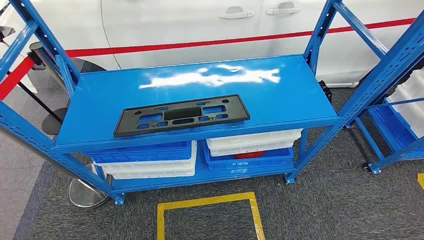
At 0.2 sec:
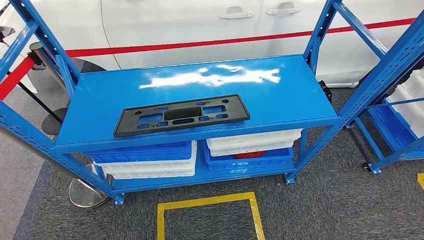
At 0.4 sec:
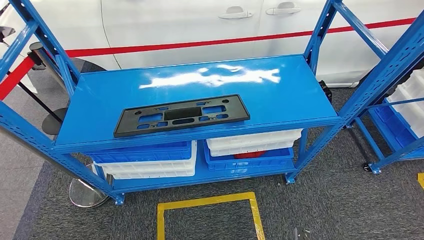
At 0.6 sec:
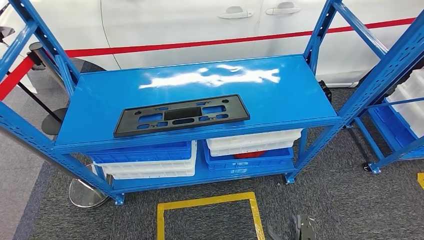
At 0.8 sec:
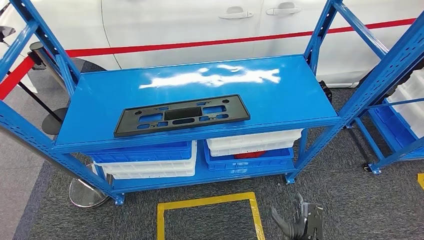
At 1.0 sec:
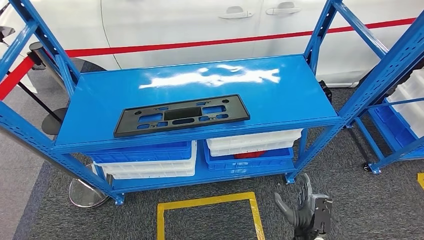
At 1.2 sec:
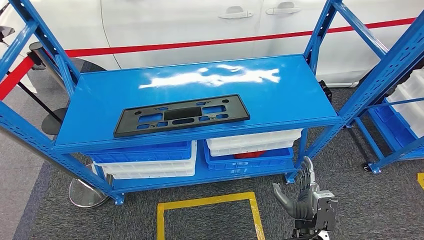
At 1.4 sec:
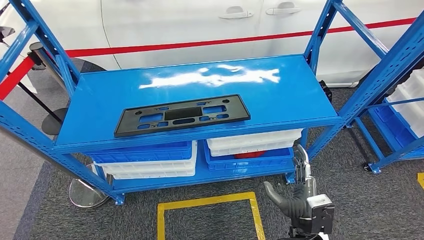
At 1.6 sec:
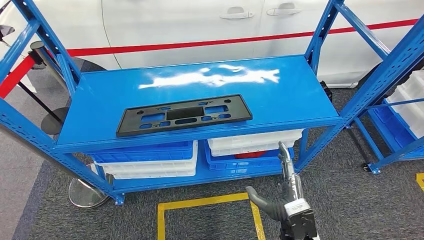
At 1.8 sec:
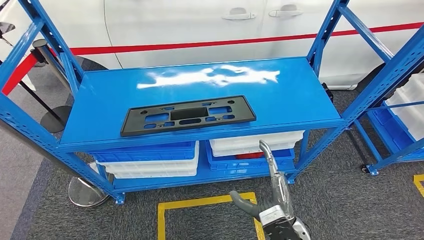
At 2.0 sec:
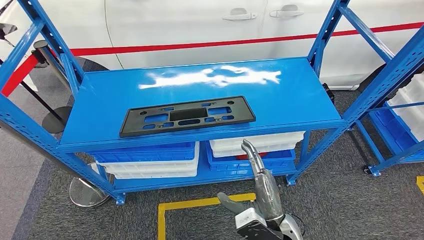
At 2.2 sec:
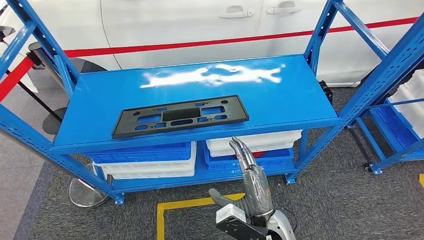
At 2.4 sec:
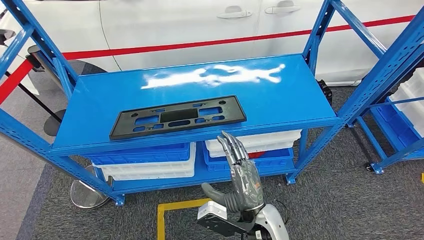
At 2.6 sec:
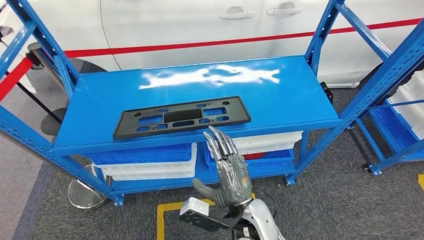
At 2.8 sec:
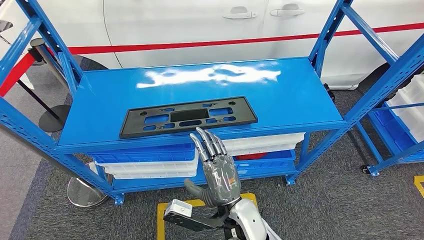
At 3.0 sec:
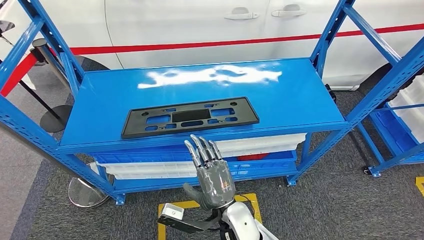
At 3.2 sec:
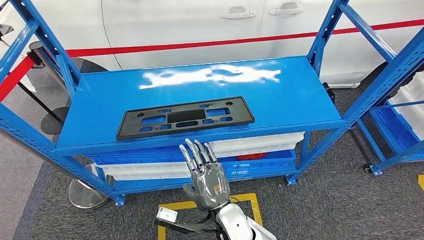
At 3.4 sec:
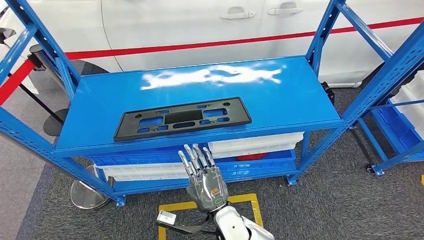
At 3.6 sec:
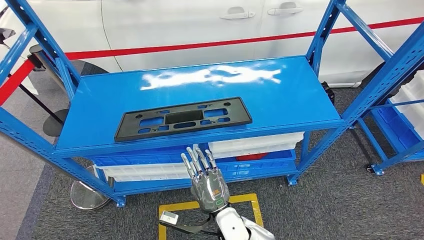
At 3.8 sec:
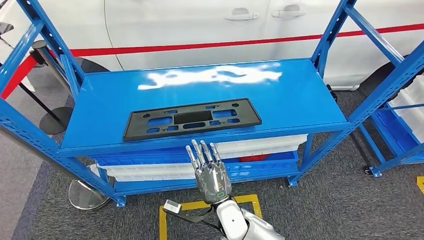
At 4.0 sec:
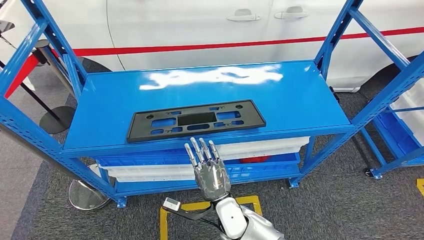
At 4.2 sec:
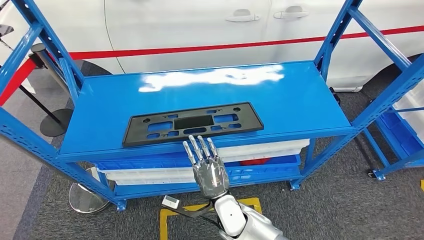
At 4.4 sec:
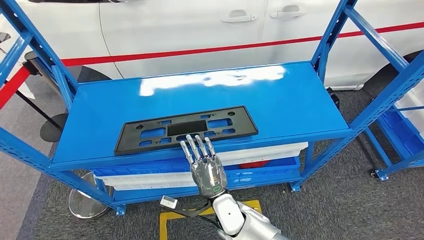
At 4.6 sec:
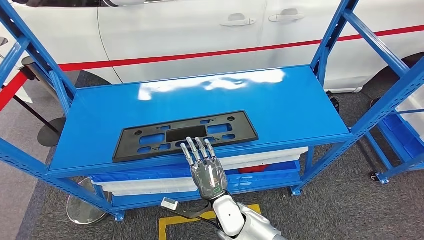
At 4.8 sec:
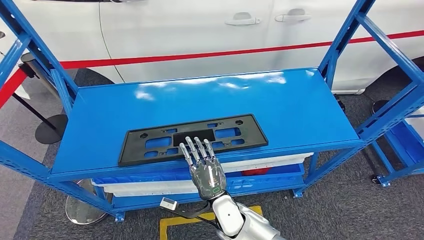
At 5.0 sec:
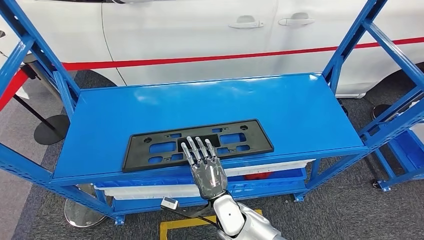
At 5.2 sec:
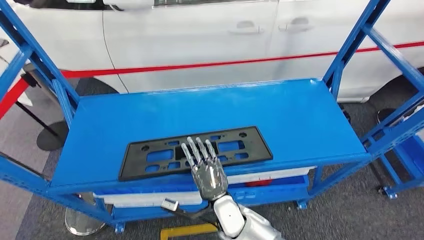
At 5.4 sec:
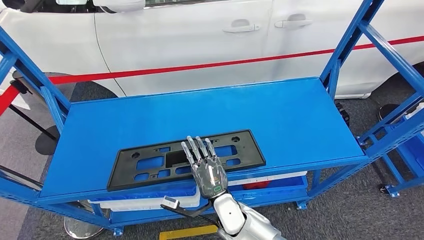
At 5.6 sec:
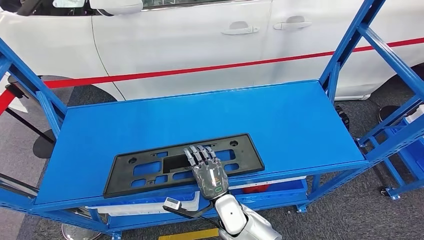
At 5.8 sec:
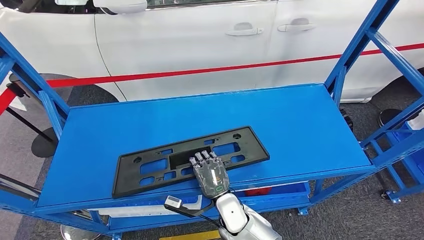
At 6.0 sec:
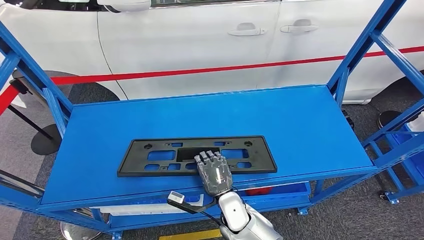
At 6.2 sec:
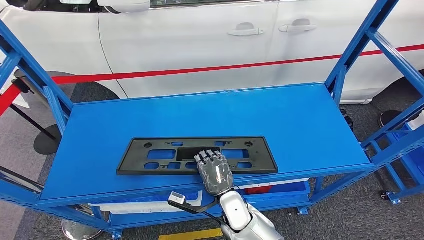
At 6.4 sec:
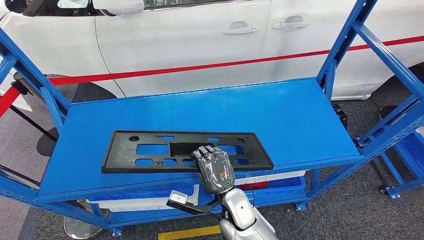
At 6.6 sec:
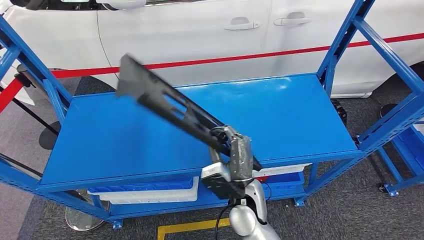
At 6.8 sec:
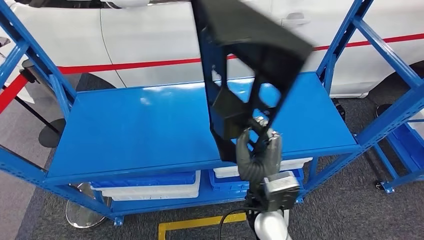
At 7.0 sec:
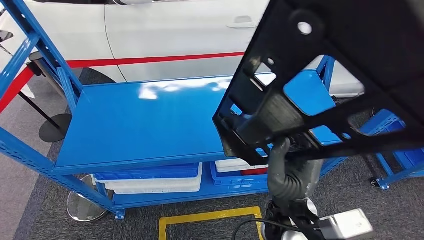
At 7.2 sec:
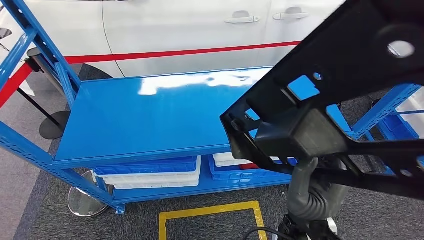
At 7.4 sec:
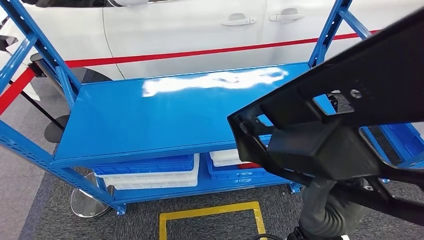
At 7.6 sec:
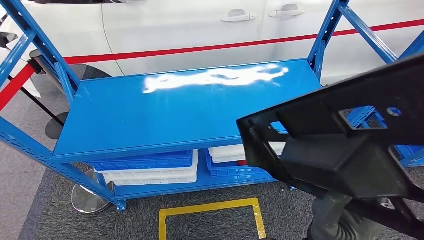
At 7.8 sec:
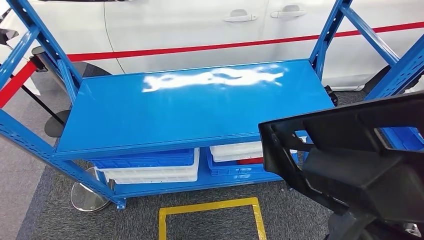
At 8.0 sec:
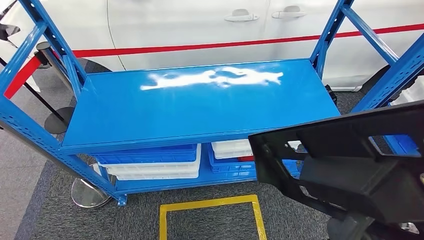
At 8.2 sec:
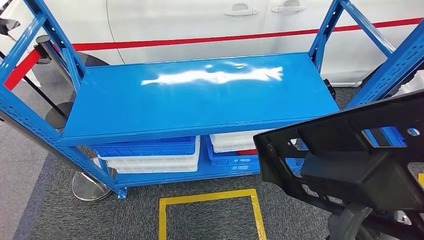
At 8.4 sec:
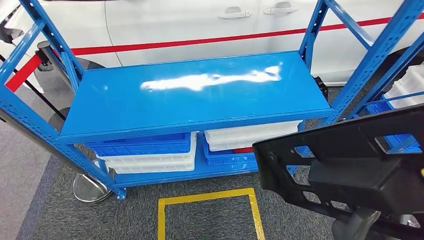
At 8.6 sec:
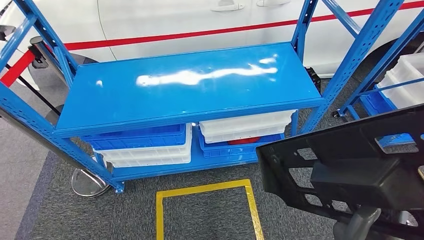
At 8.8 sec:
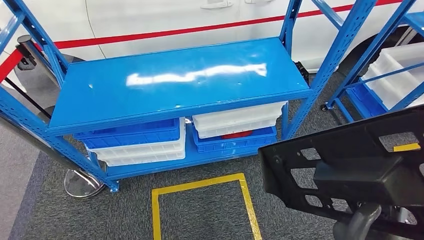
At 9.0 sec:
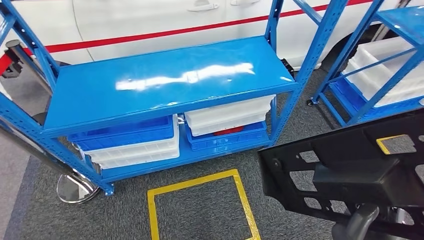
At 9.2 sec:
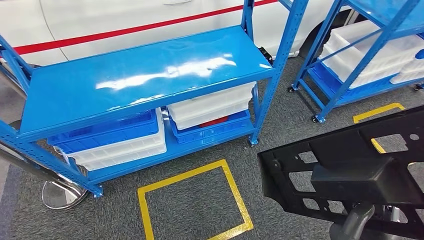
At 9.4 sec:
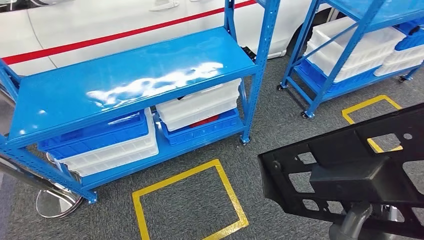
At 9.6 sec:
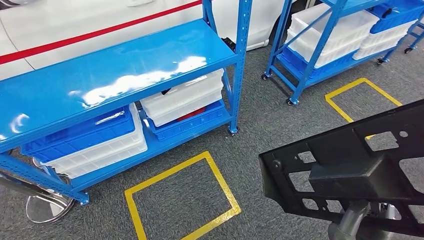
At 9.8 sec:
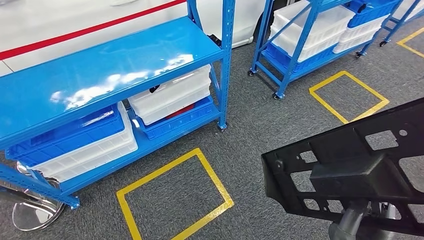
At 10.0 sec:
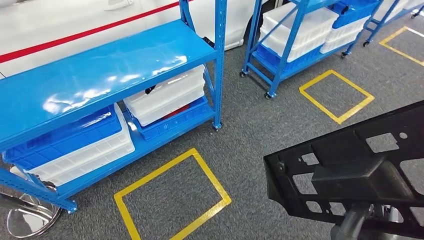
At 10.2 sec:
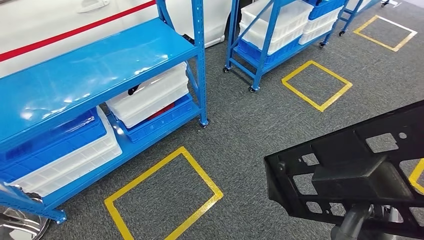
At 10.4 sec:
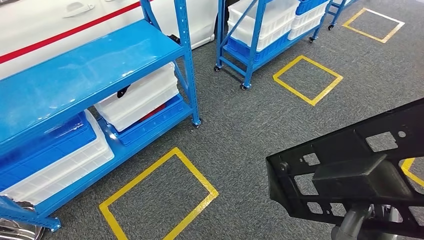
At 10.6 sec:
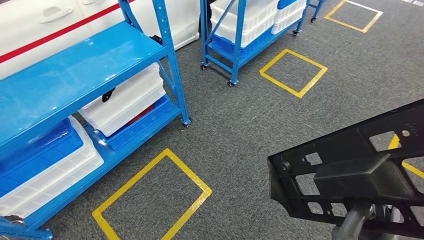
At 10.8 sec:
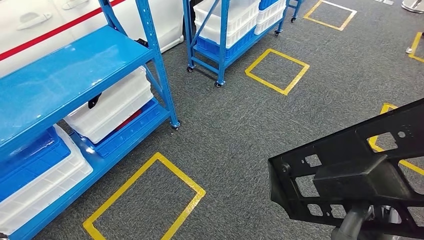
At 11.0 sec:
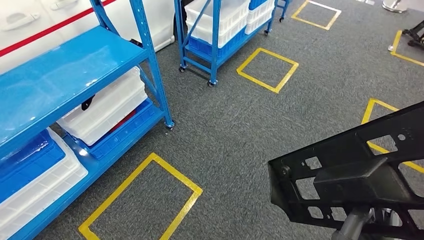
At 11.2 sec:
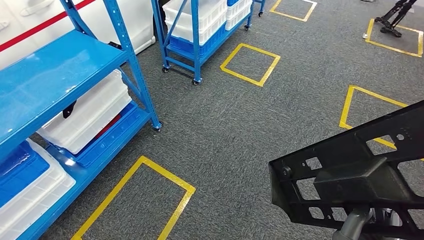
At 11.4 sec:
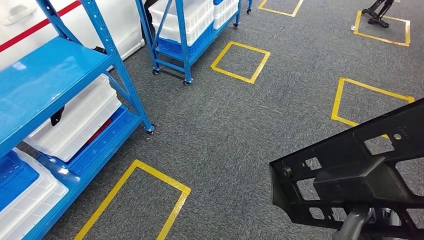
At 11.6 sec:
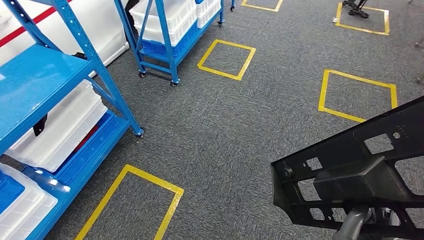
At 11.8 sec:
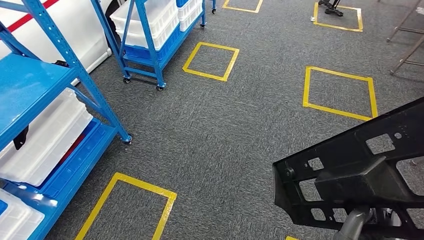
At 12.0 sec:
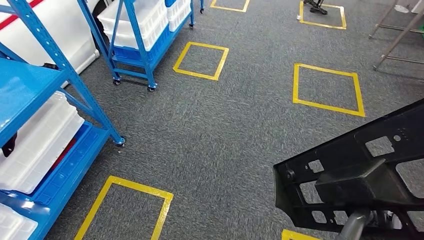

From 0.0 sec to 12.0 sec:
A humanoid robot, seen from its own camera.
Step, from 0.0 sec to 8.0 sec: Pick up the large material from the shelf.

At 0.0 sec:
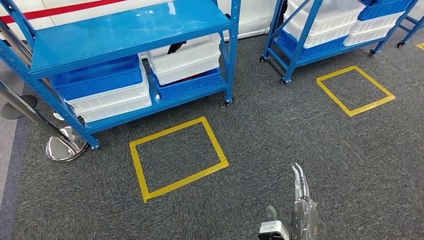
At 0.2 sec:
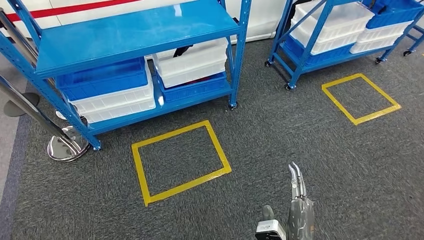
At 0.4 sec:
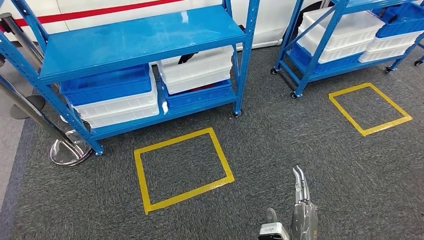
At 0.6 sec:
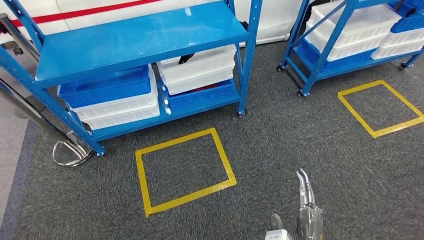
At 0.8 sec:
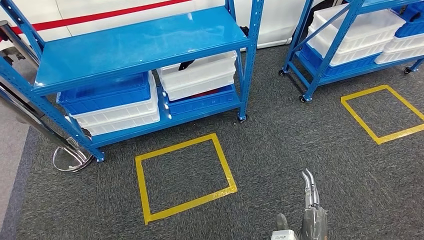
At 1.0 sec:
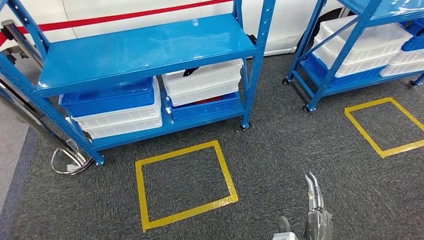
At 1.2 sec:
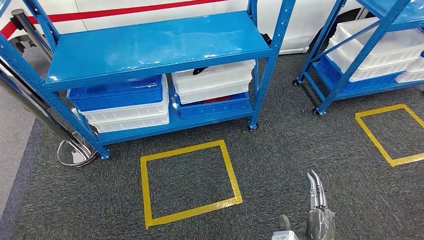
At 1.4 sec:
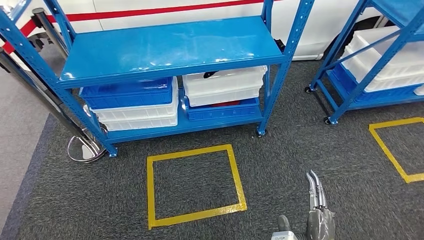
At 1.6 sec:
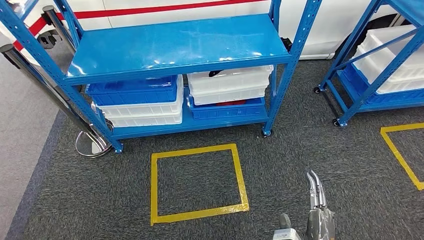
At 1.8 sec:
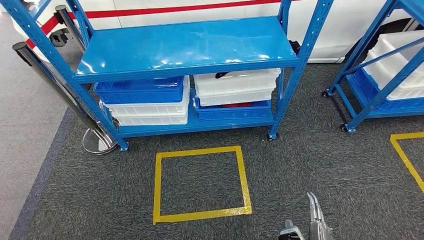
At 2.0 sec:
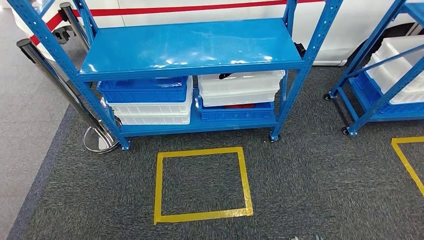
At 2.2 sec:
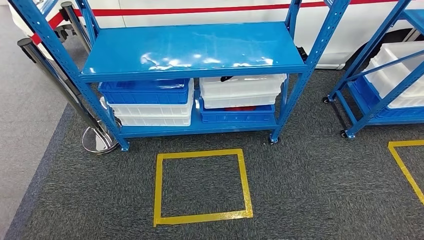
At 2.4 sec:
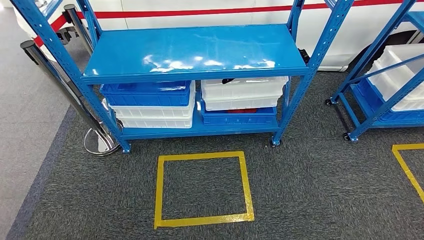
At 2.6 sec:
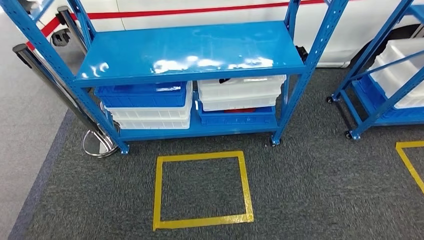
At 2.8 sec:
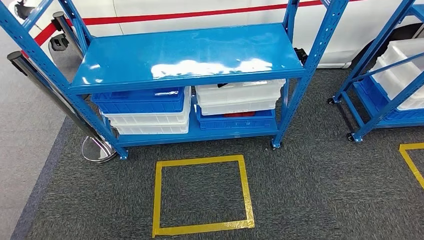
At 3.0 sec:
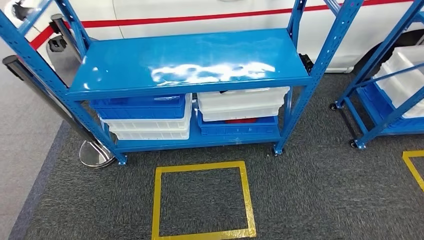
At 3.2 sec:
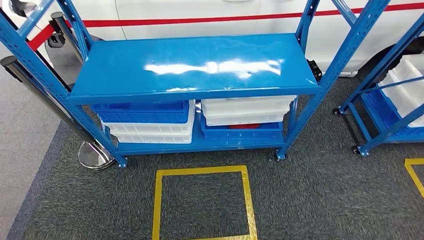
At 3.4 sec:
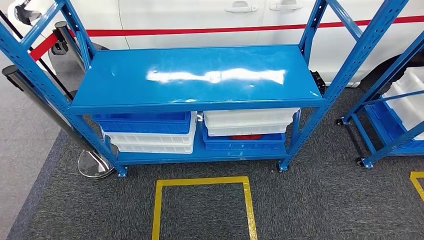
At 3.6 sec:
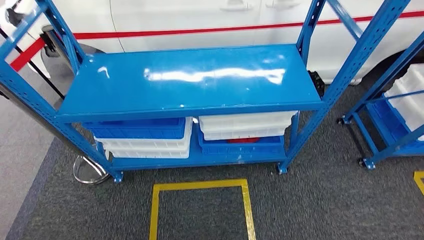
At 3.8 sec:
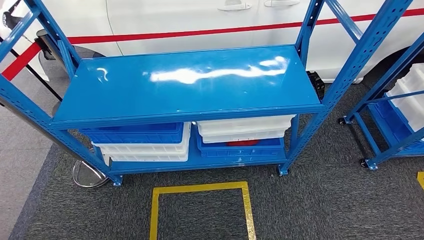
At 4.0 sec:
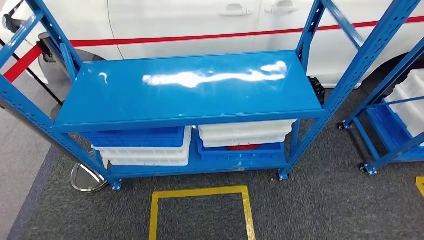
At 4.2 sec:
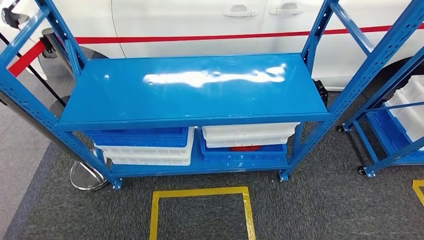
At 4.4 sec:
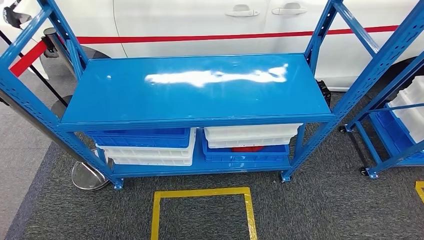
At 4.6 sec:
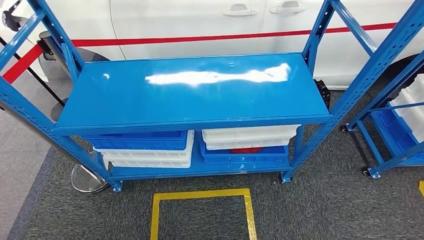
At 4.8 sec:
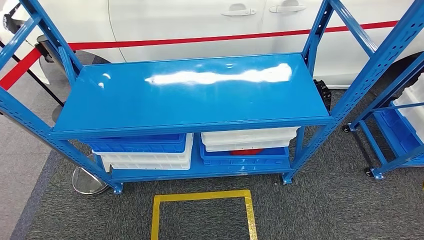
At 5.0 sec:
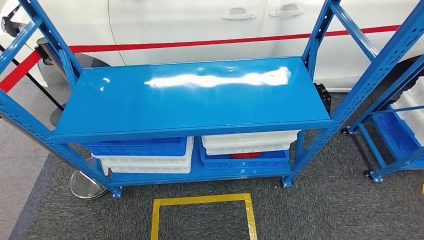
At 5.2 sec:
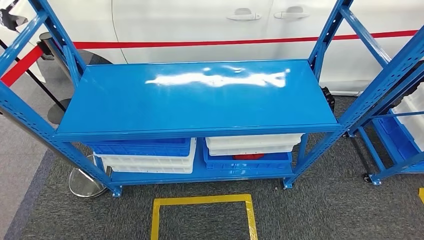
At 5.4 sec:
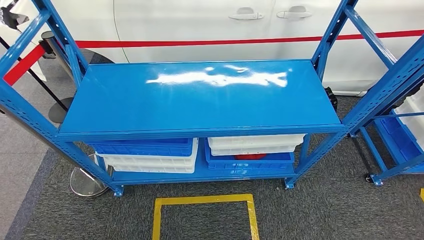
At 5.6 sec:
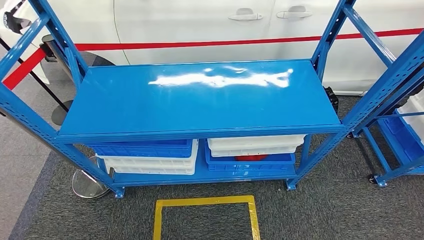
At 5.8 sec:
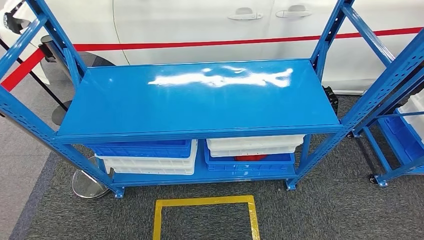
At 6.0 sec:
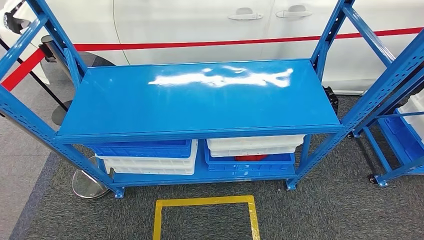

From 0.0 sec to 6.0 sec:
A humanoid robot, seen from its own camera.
Step, from 0.0 sec to 6.0 sec: Move to the initial position of the shelf.
